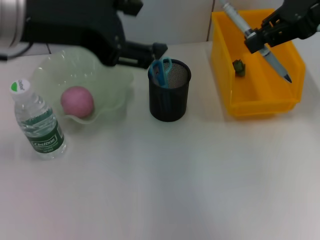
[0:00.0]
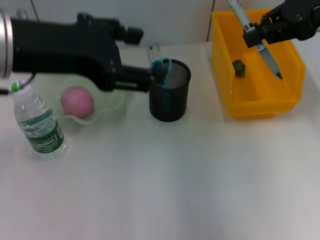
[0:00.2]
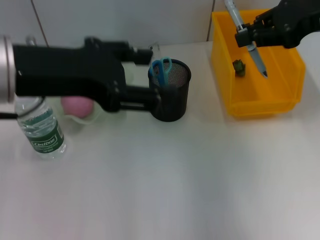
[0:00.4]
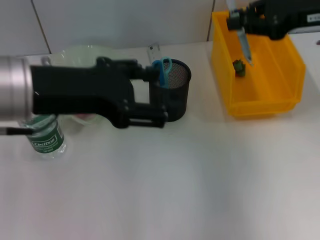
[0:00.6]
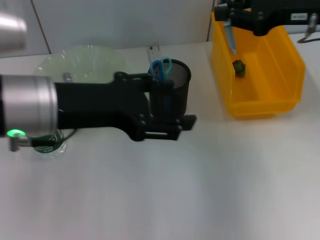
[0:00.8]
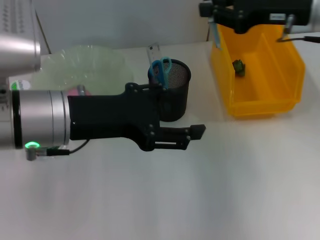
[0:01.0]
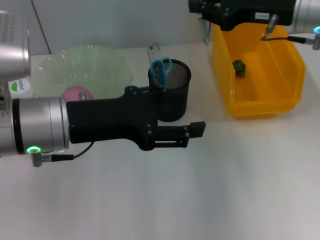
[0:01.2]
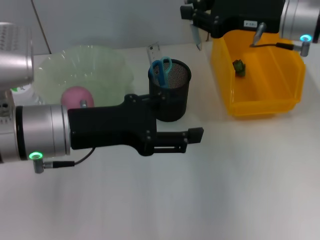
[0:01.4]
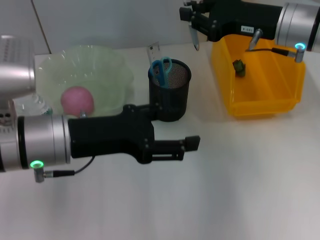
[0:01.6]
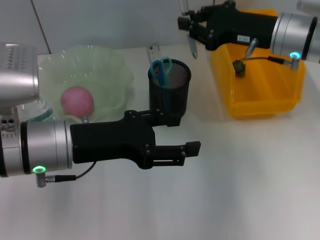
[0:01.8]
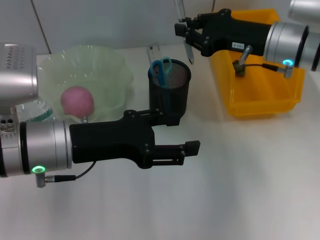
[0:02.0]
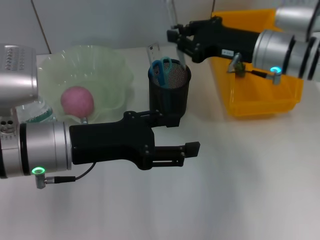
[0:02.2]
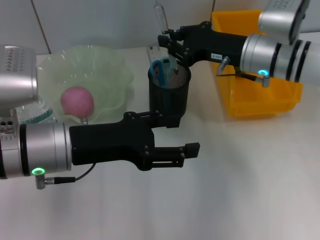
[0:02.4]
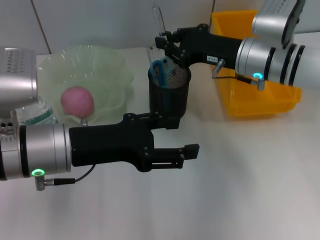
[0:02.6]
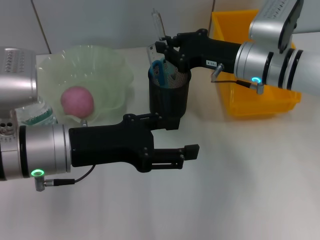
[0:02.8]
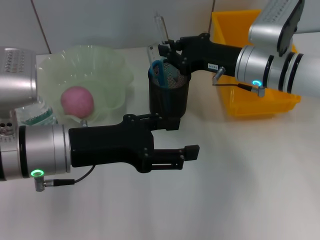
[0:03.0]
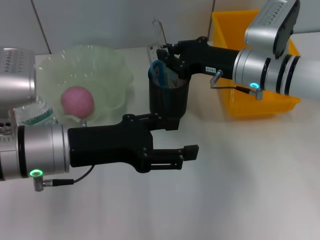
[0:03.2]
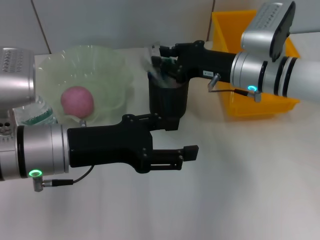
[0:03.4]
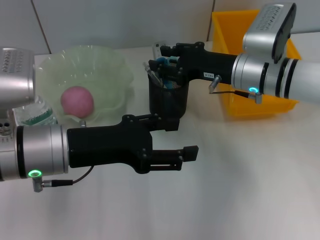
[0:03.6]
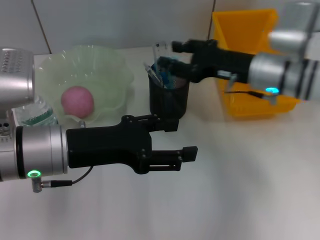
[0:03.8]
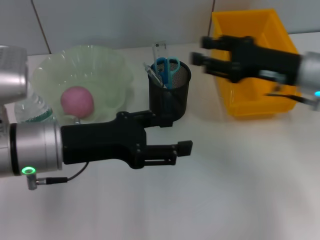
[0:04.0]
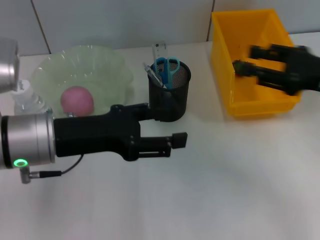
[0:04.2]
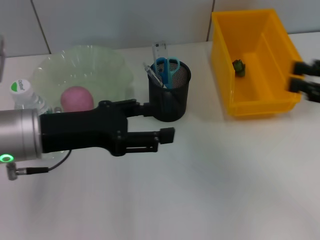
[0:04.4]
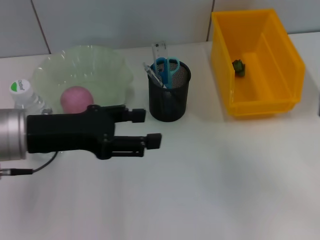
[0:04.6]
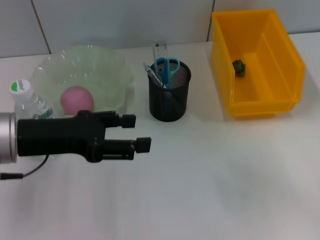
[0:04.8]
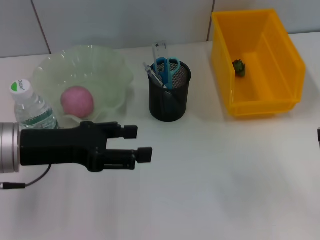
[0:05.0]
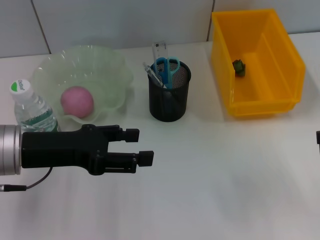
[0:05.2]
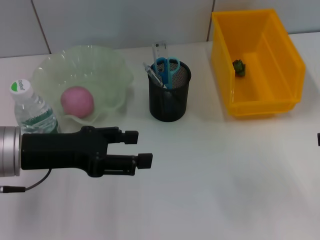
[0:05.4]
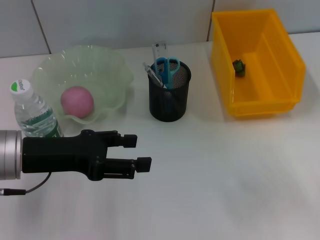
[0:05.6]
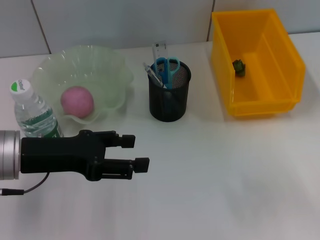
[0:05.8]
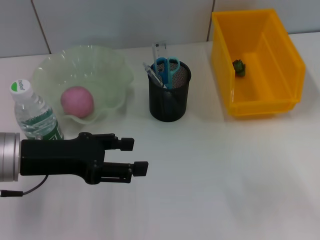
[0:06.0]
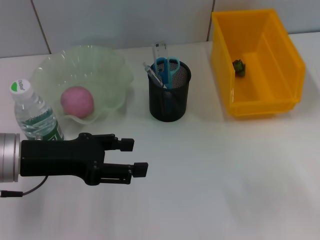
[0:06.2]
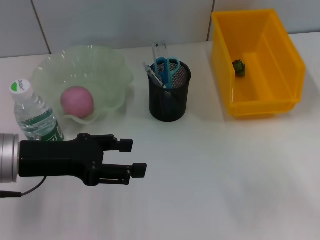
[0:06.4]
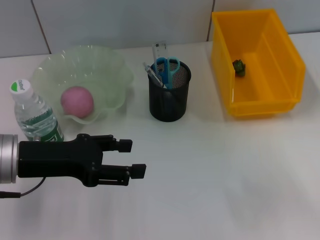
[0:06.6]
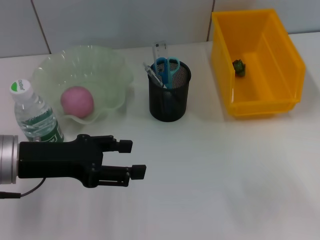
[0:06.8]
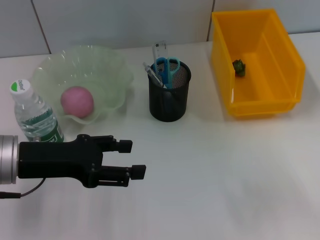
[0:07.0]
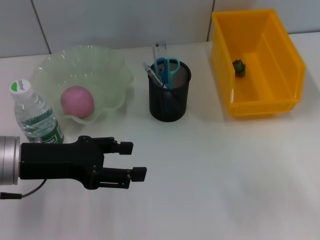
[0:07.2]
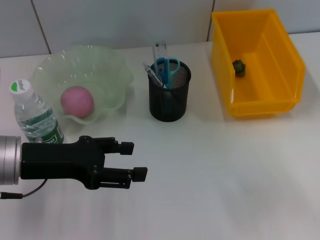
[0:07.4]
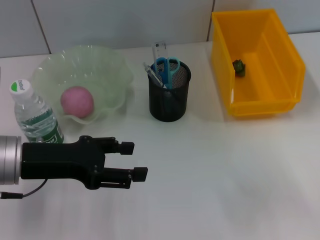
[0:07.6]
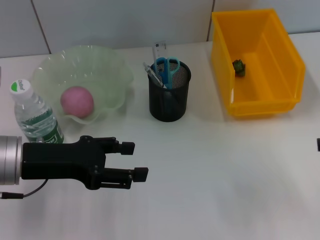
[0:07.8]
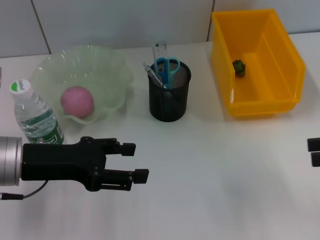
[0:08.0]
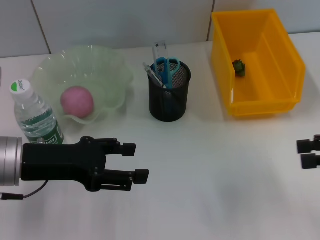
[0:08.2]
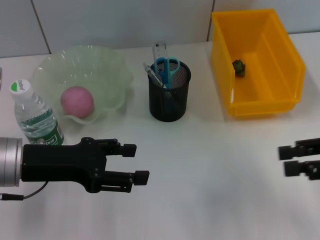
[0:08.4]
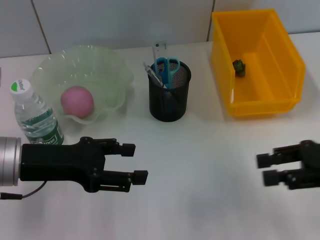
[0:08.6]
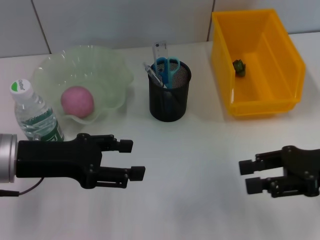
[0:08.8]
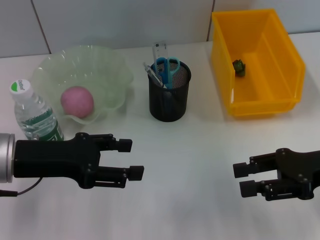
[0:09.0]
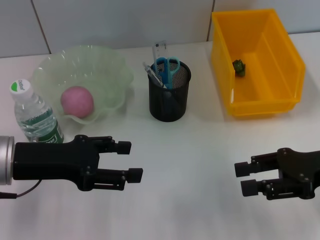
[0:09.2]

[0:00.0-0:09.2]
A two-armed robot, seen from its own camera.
Step, 0.0 to 3.4 s: Place the gray spring-action pen into the pen holder with the right hand.
0.0 to 1.6 s: The grippers both shift downward by approximately 15 cm.
1.6 to 3.0 s: The right gripper is displaced downward by approximately 5 cm.
3.0 to 4.6 s: The left gripper changes place by some 5 cm; the right gripper is displaced to the right and backward by approximately 25 cm, and opens up.
4.6 to 6.2 s: There are only small adjustments of the grippers.
6.2 to 7.6 s: Both grippers stay put.
7.6 to 9.2 s: The right gripper travels to the left by about 10 cm.

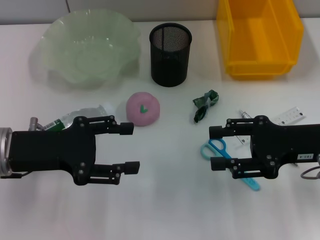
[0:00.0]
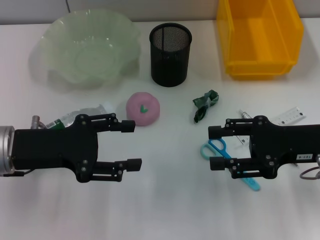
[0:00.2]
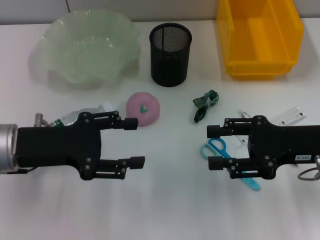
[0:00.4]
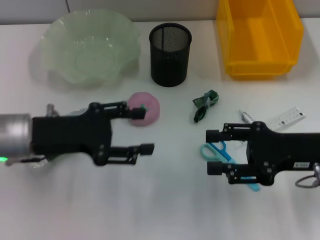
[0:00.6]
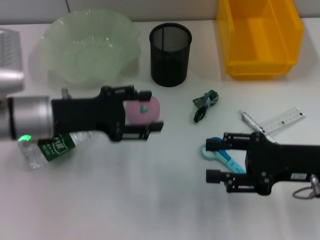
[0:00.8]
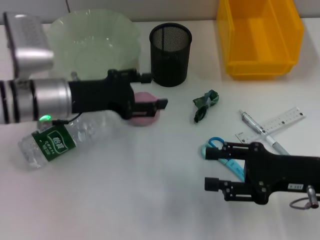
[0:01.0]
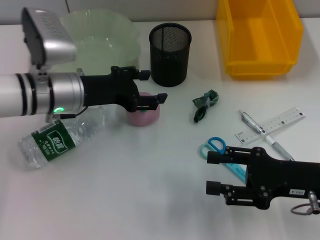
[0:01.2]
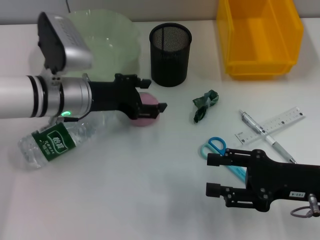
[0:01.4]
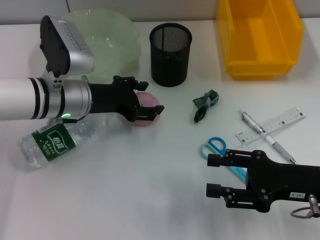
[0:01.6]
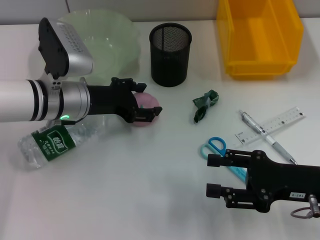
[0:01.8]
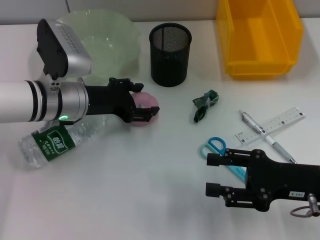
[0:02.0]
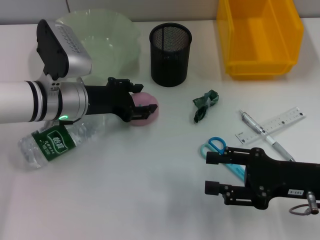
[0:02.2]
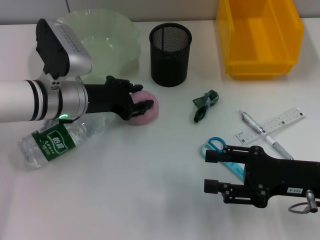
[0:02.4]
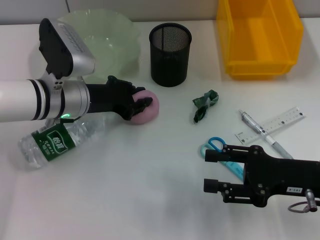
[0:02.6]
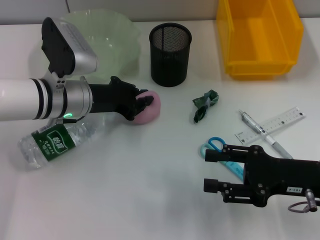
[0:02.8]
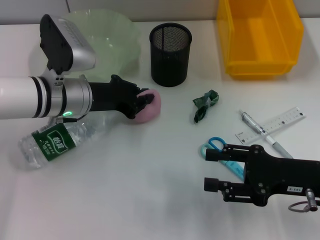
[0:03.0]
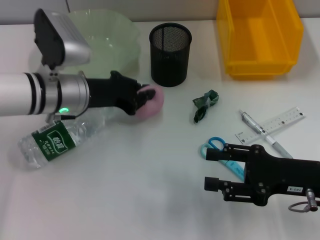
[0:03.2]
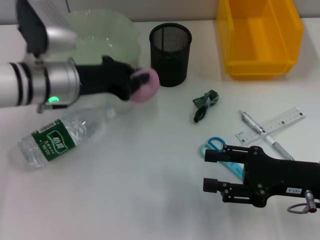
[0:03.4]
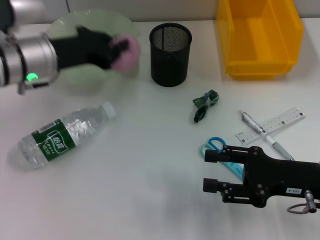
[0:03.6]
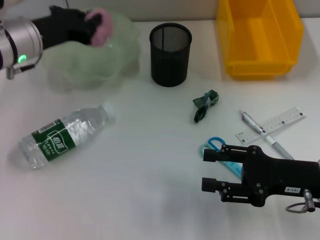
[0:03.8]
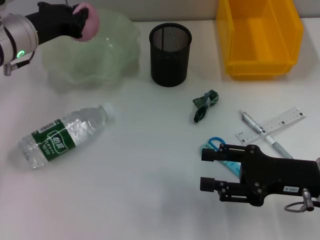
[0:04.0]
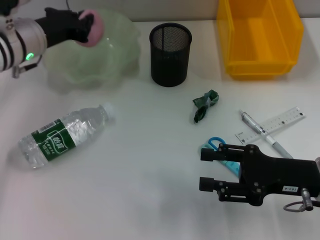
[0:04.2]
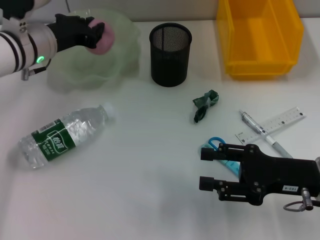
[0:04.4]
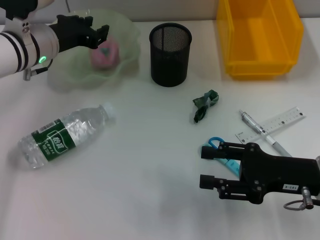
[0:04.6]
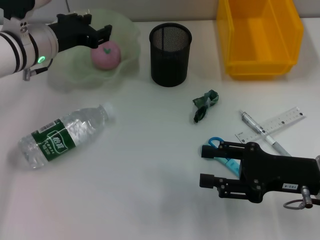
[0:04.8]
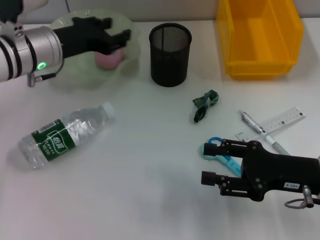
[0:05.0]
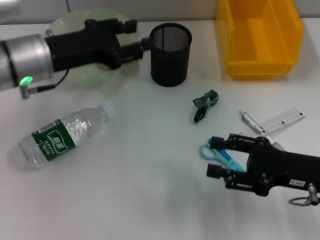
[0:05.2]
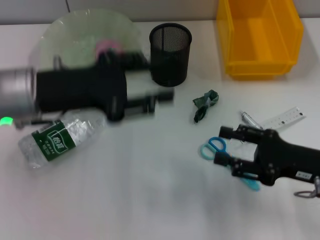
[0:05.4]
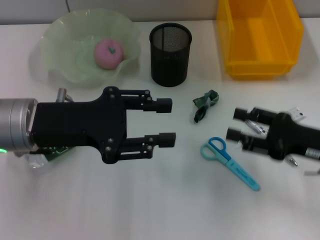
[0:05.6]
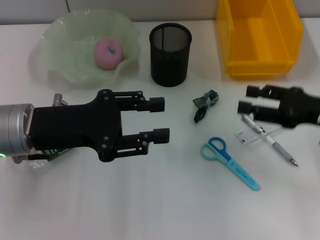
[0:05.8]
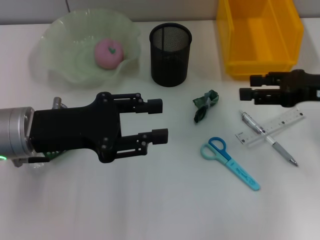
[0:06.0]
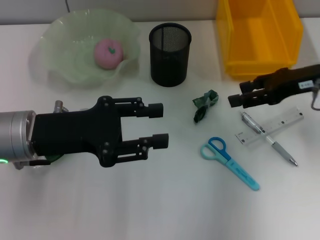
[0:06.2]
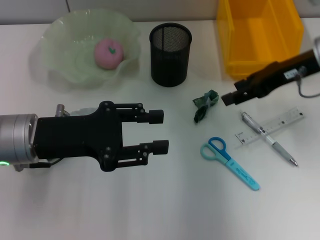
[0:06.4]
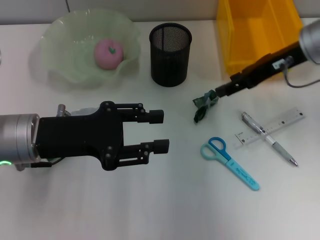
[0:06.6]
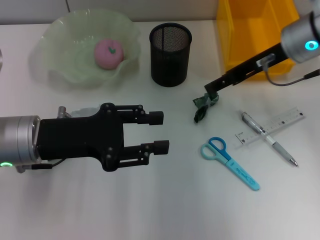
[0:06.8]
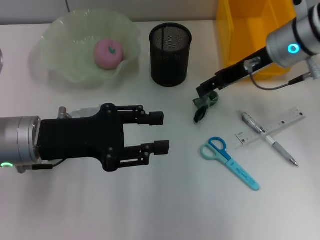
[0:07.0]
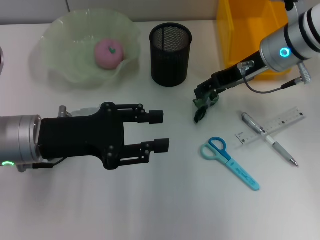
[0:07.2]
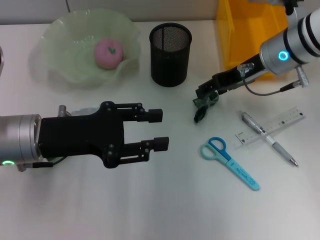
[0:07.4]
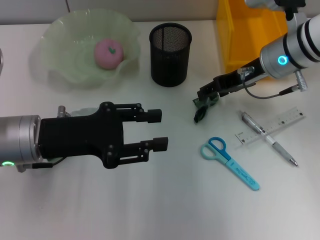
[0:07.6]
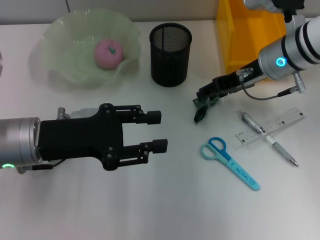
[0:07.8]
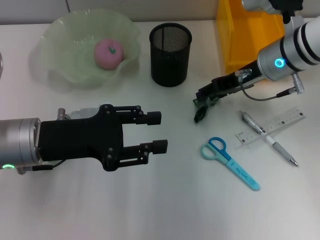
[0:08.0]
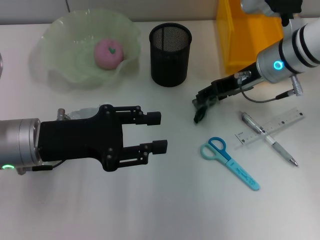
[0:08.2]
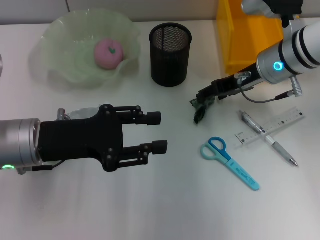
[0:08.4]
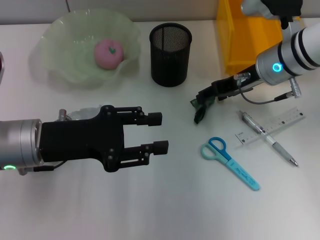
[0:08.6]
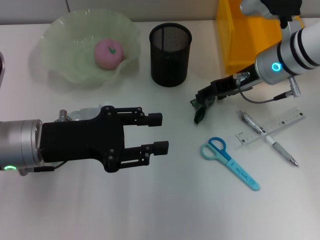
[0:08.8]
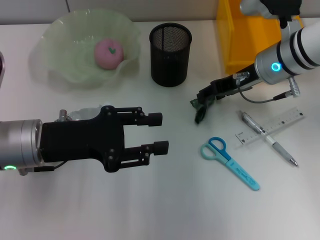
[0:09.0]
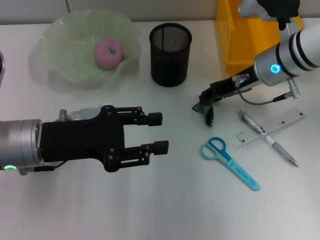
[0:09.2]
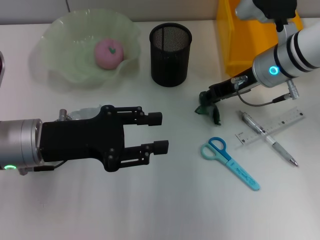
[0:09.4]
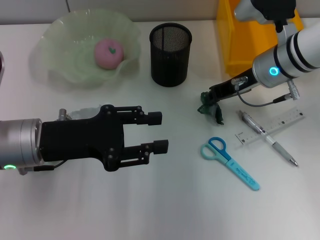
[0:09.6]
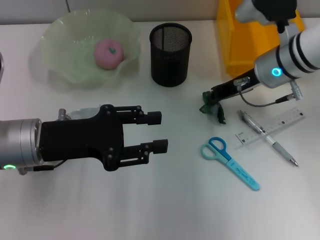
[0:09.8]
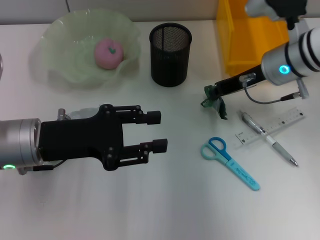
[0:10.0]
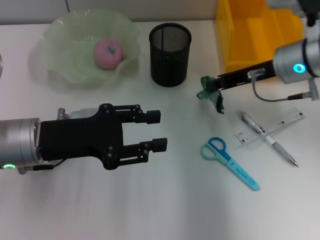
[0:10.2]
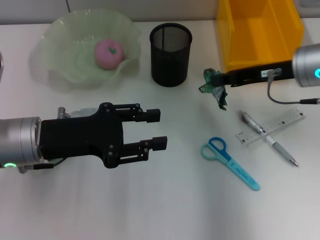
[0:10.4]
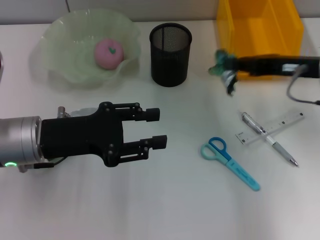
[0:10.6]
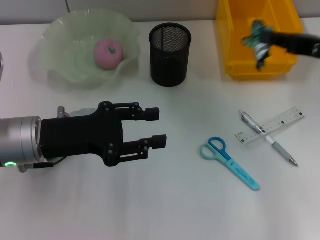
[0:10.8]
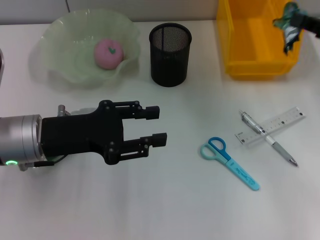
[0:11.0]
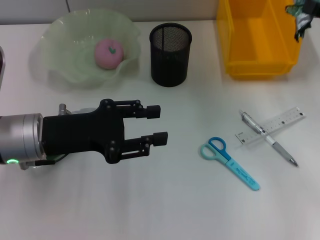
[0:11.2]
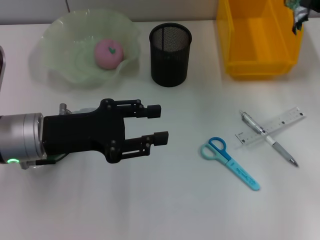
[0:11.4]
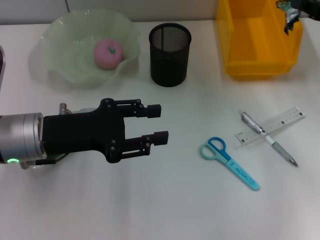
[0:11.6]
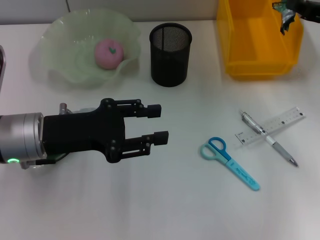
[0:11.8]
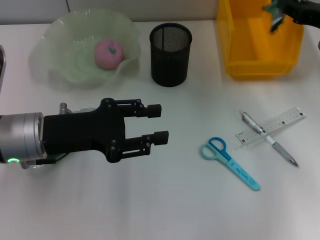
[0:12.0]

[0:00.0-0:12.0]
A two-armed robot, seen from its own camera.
Step, 0.0 to 2.6 s: Grab the peach with the left hand.
Step, 3.0 to 4.8 s: Place the peach into the fruit bowl with the left hand.
Step, 5.0 to 9.6 s: Grab the plastic with the right hand.
0.0 to 1.6 s: The right gripper shifts by roughly 5 cm. Meanwhile the left gripper moves forward and to the right, some 15 cm.
1.6 to 3.0 s: The left gripper closes its fingers.
3.0 to 4.4 s: The left gripper travels forward by about 5 cm.
4.4 to 6.0 s: The left gripper goes about 15 cm backward, and opens; the right gripper goes about 15 cm forward and upward.
6.0 to 7.6 s: The right gripper shifts approximately 15 cm to the left and forward.
7.6 to 9.0 s: The grippers stay close to where they were, moving slightly.
9.0 to 10.4 s: The right gripper ends up approximately 5 cm from where it was, and closes its fingers.
10.4 to 12.0 s: The right gripper shifts roughly 10 cm to the right.

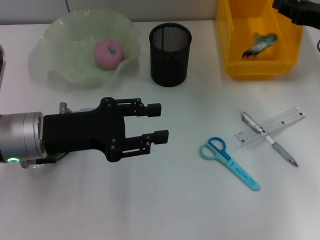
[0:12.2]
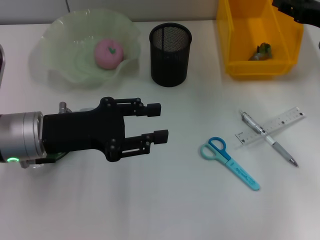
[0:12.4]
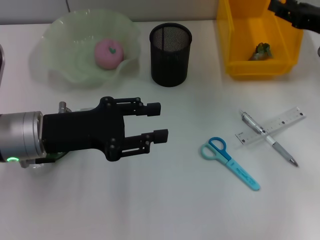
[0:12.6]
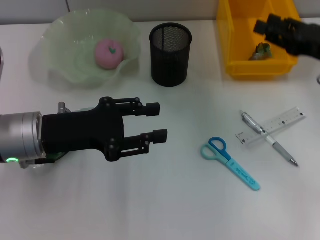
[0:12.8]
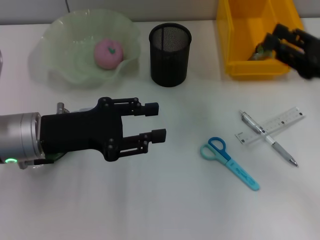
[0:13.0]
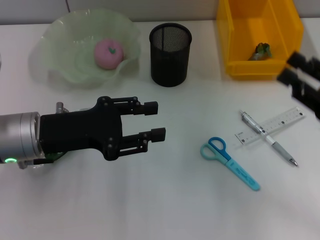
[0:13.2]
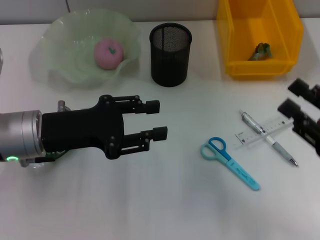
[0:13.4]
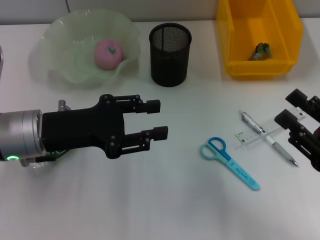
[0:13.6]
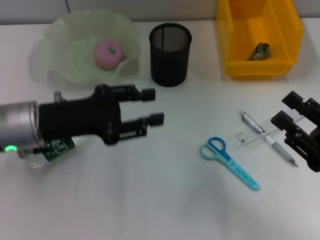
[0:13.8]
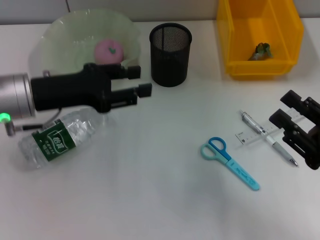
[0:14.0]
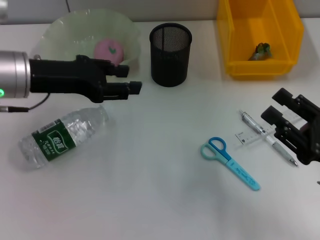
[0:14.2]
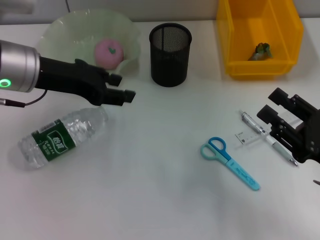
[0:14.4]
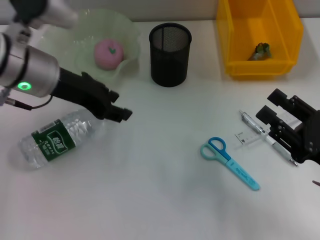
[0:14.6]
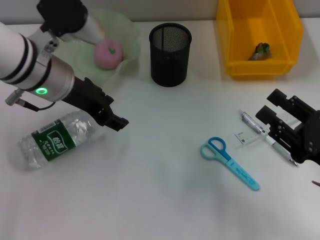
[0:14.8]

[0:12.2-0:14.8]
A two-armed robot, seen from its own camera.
12.2 to 13.4 s: The right gripper shifts approximately 20 cm backward, and opens its fingers.
13.4 to 14.8 s: The left gripper moves forward and upward, some 10 cm.
